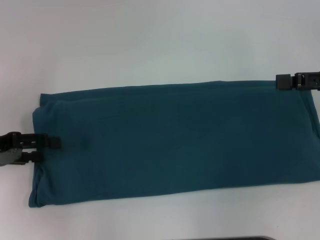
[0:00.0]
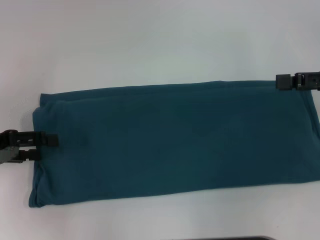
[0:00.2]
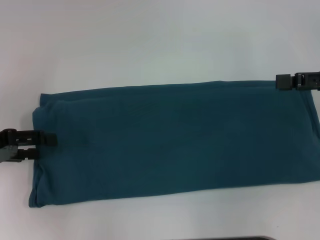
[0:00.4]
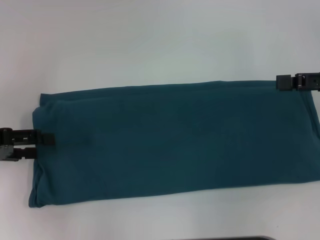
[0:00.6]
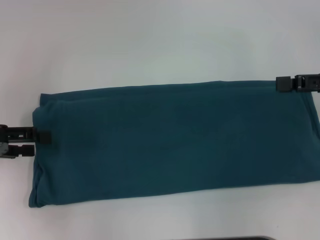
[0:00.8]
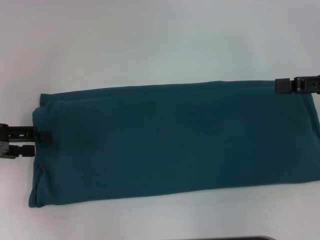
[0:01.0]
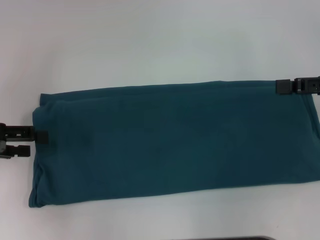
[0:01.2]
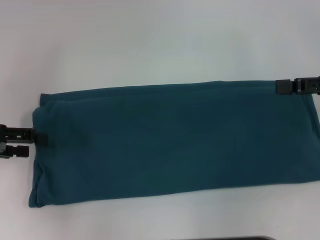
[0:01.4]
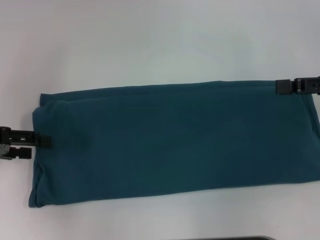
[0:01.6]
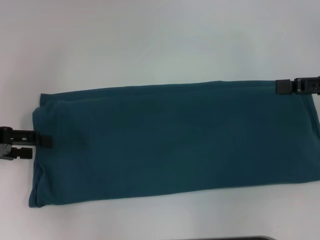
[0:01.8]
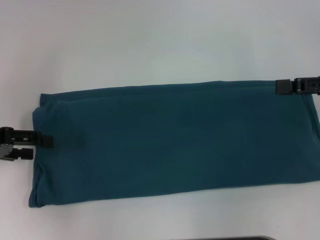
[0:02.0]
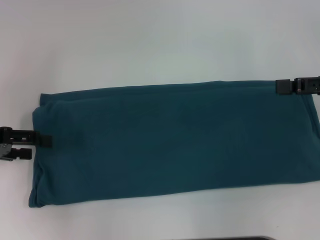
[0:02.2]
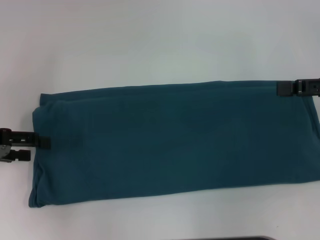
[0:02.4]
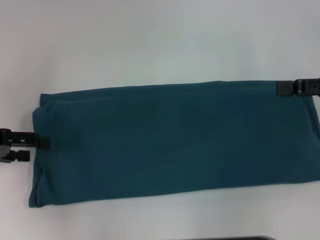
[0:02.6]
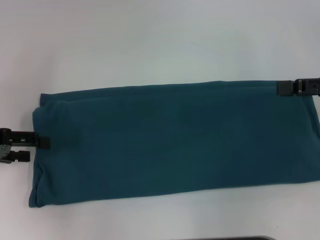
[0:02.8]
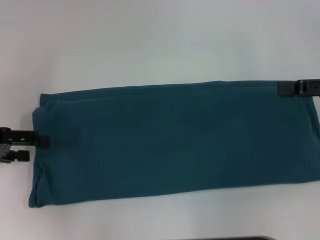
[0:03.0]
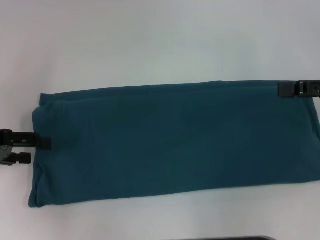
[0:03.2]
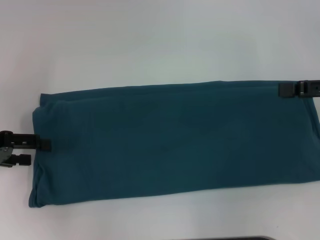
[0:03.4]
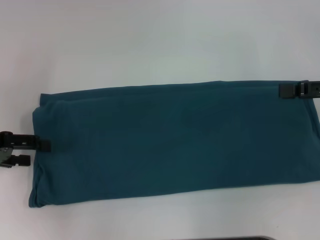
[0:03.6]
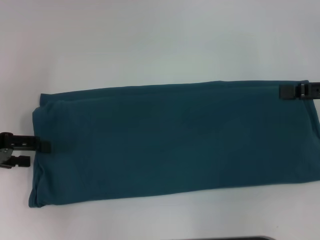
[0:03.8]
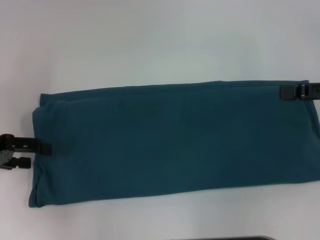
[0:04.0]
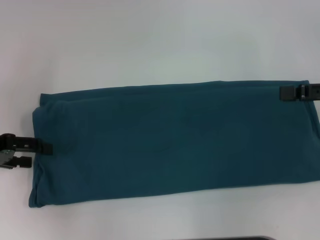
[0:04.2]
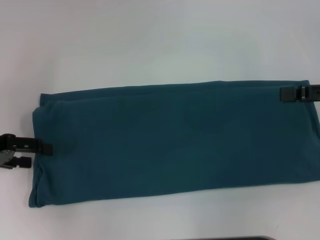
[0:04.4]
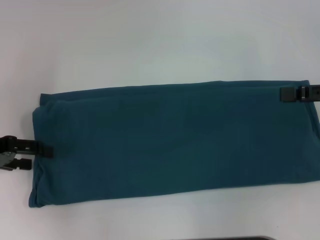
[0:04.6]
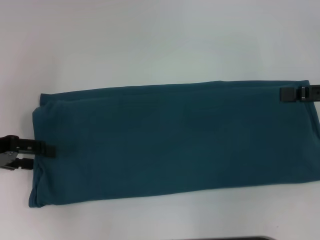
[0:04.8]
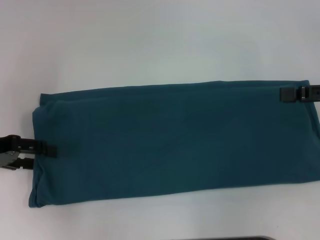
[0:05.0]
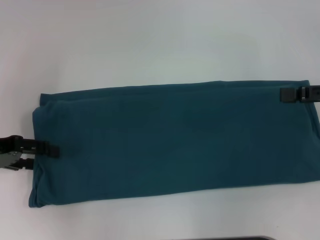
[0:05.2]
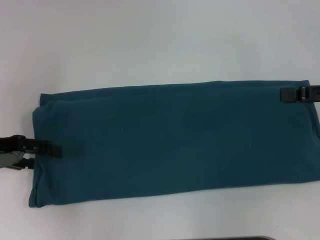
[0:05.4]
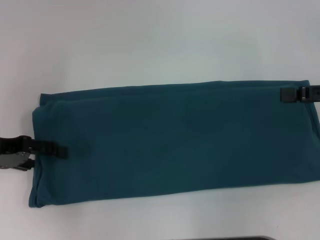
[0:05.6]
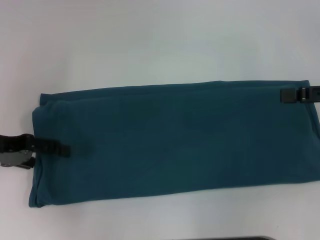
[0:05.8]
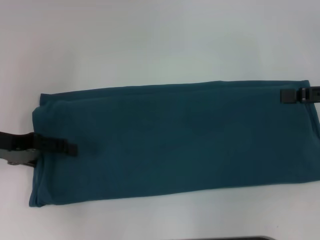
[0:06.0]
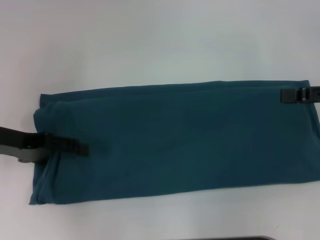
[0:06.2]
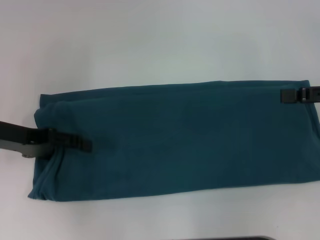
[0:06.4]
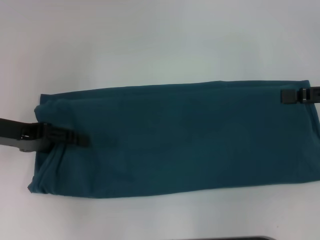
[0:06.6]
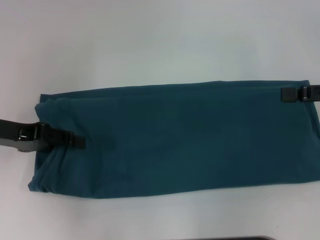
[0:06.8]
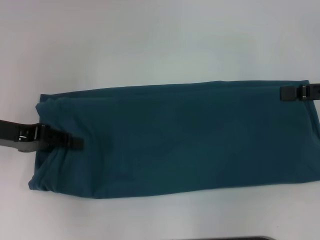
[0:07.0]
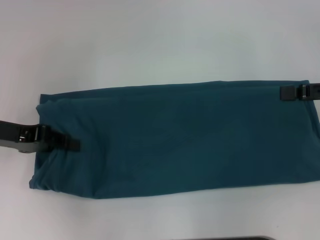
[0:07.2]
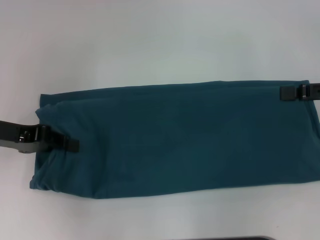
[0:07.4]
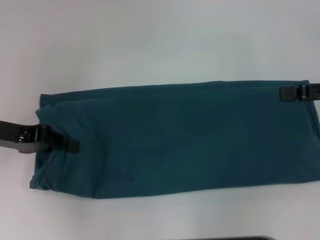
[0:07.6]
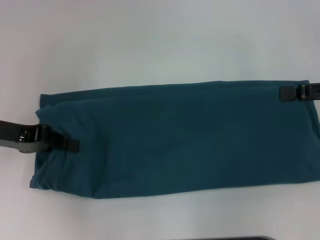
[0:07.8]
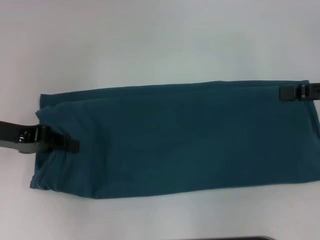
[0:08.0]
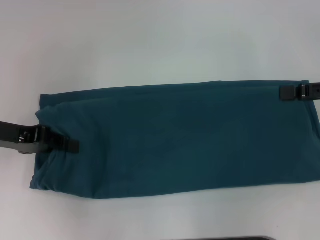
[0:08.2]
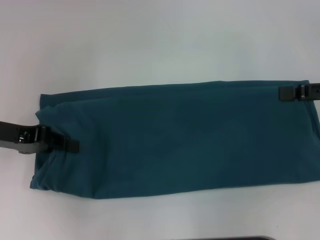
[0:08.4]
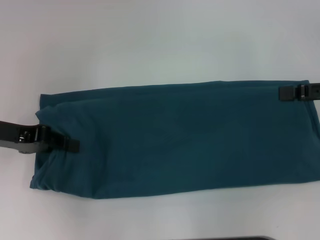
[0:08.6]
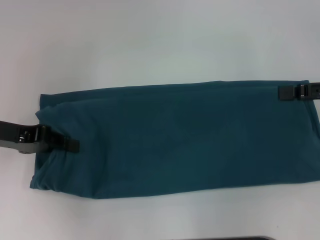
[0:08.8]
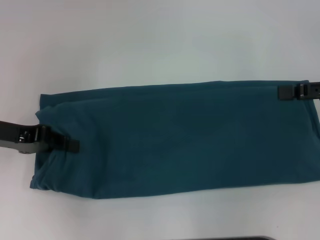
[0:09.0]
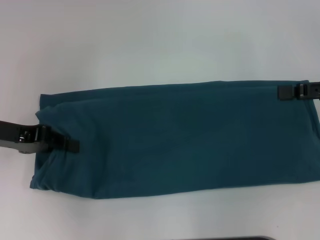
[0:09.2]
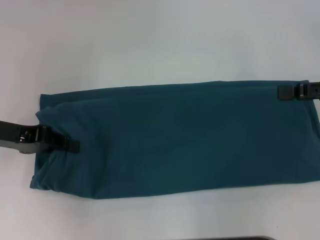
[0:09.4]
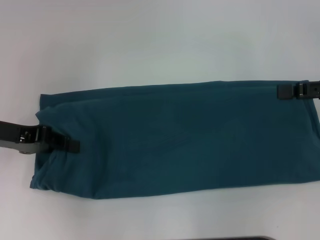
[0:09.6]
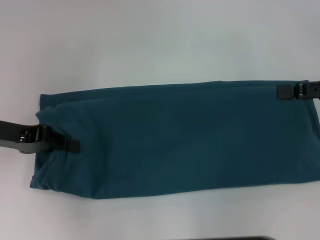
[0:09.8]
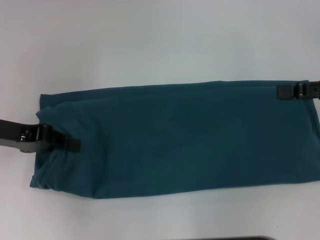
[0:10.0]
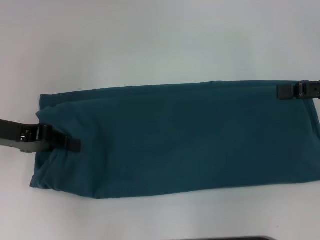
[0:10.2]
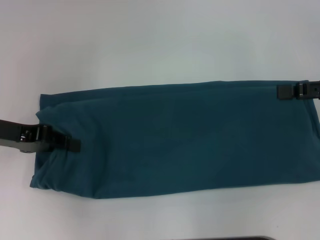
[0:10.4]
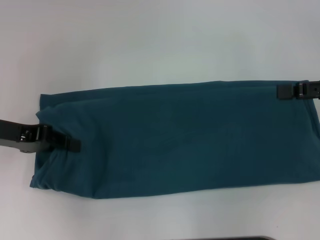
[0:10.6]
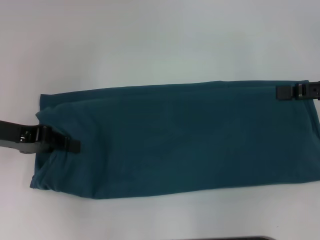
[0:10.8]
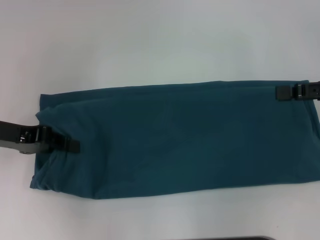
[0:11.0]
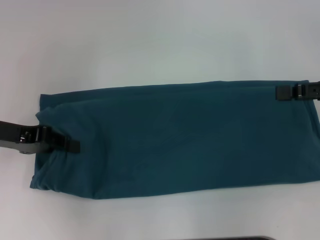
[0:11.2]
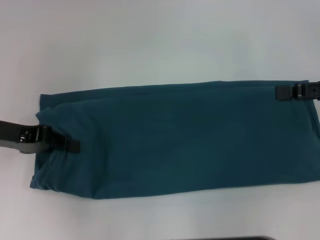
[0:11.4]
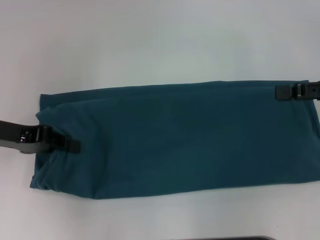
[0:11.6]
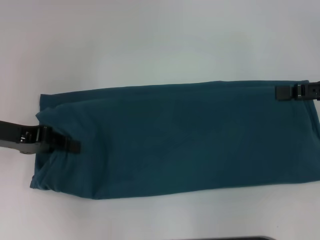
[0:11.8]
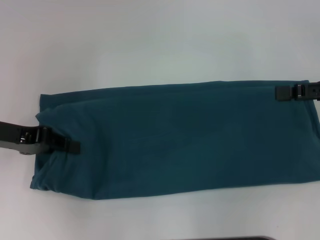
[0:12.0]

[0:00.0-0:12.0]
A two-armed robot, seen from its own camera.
0:00.0 to 0:01.6: The grippers move only a little.
0:03.0 to 0:04.4: Both grippers stay put.
0:04.4 to 0:06.0: The grippers make only small movements.
0:06.0 to 0:07.6: The left gripper closes its fingers.
0:07.6 to 0:12.0: Both grippers stay put.

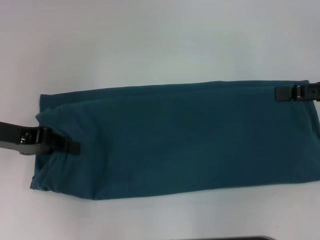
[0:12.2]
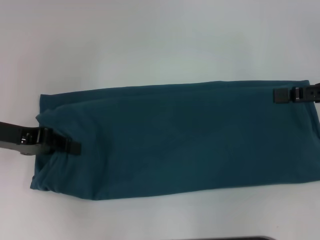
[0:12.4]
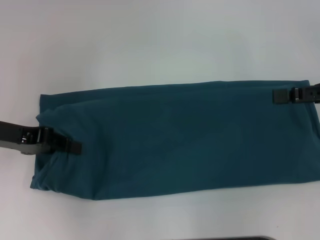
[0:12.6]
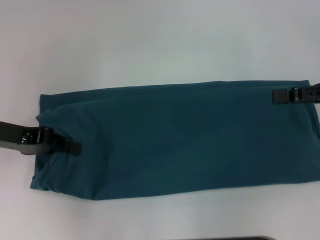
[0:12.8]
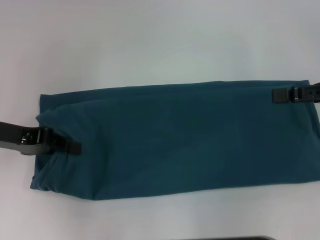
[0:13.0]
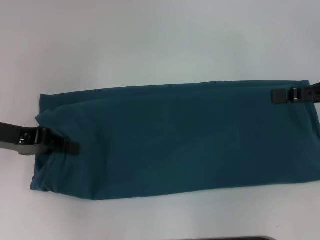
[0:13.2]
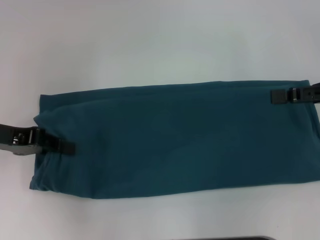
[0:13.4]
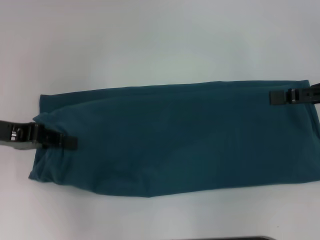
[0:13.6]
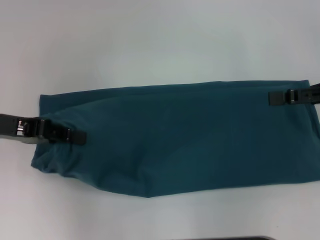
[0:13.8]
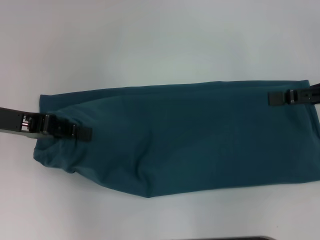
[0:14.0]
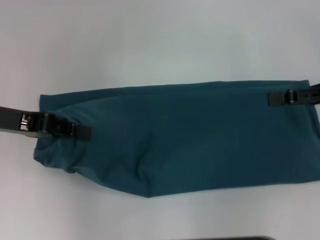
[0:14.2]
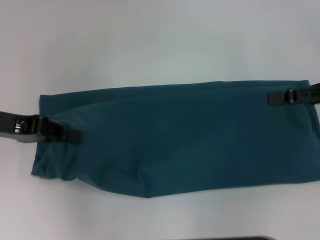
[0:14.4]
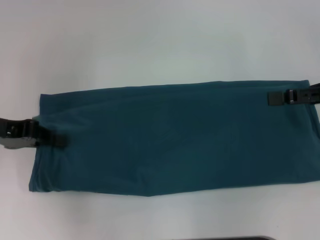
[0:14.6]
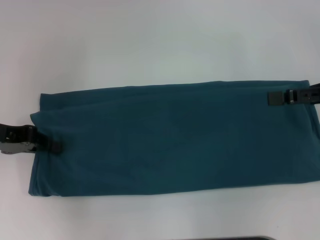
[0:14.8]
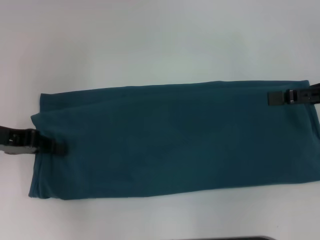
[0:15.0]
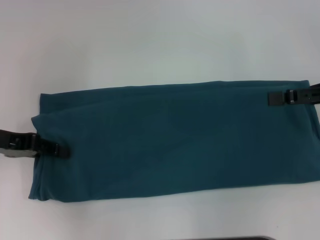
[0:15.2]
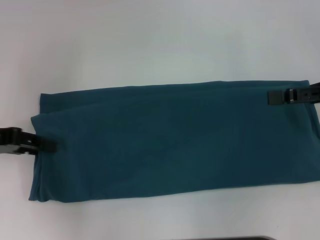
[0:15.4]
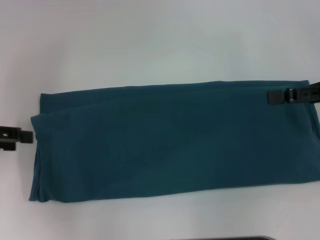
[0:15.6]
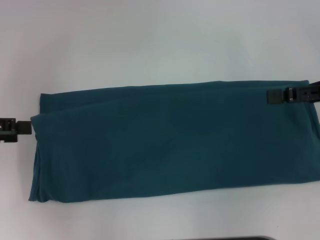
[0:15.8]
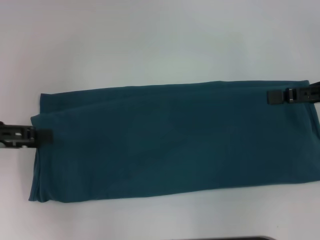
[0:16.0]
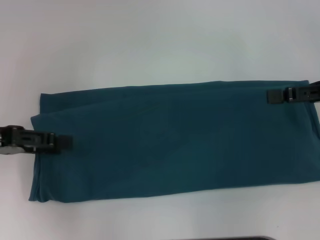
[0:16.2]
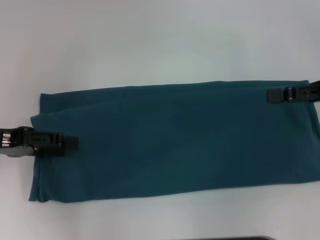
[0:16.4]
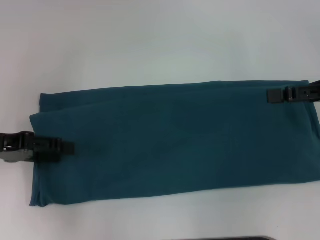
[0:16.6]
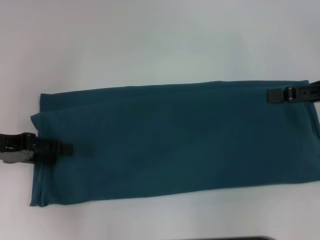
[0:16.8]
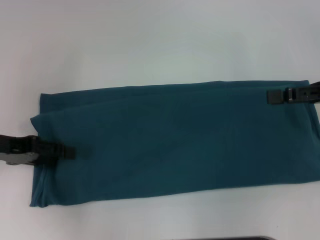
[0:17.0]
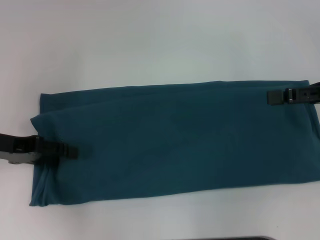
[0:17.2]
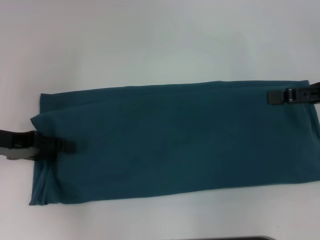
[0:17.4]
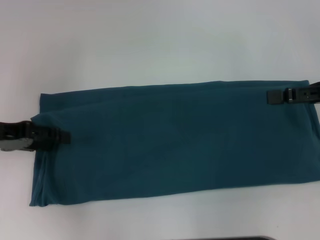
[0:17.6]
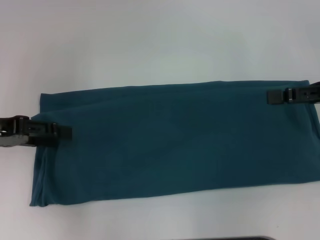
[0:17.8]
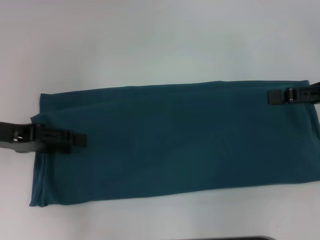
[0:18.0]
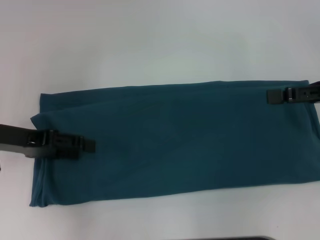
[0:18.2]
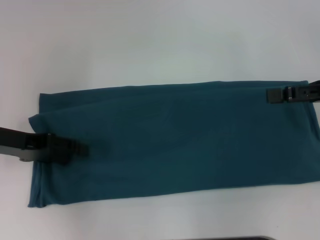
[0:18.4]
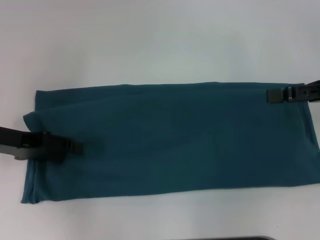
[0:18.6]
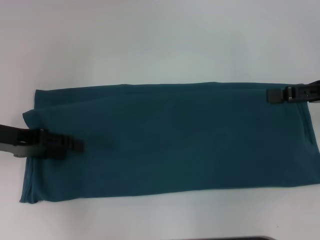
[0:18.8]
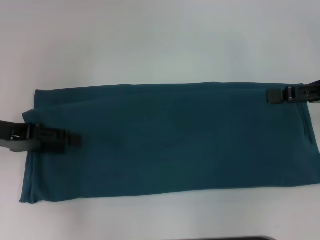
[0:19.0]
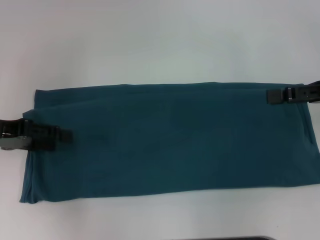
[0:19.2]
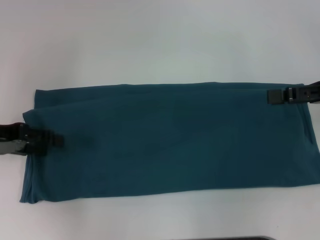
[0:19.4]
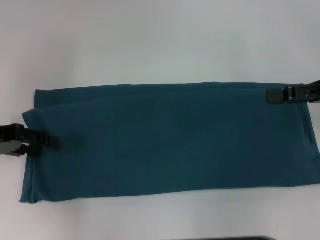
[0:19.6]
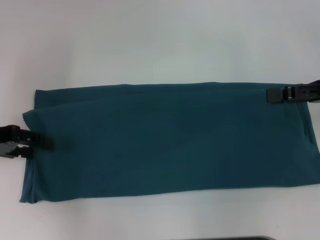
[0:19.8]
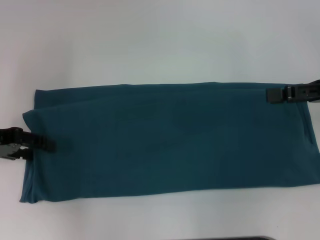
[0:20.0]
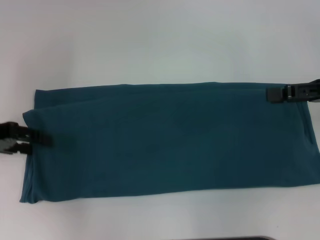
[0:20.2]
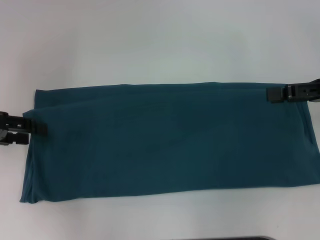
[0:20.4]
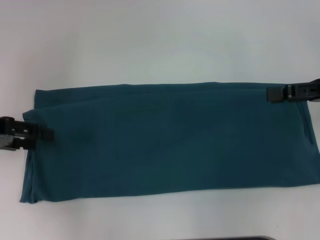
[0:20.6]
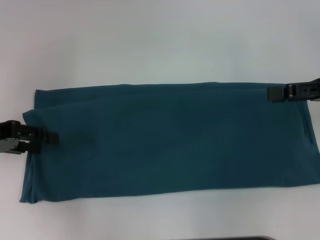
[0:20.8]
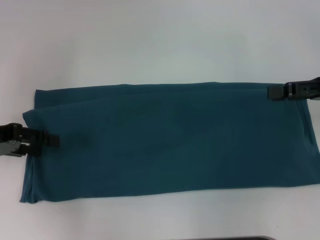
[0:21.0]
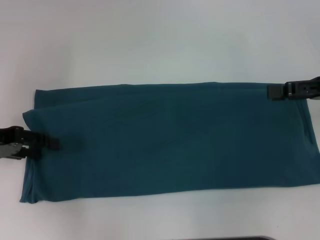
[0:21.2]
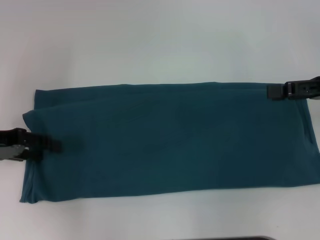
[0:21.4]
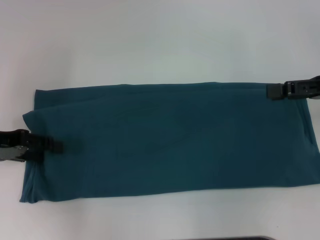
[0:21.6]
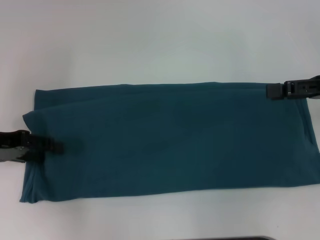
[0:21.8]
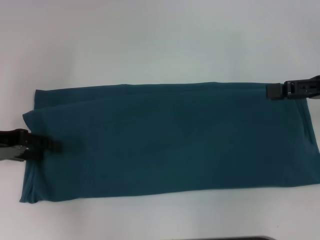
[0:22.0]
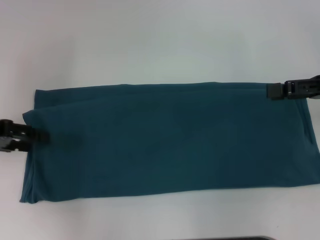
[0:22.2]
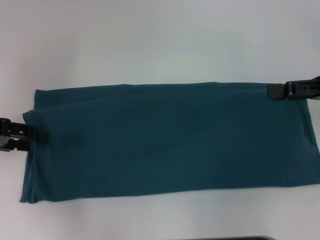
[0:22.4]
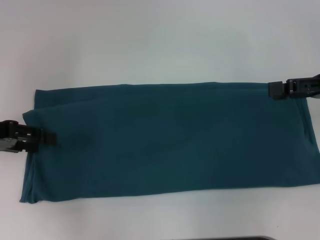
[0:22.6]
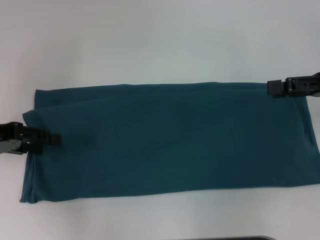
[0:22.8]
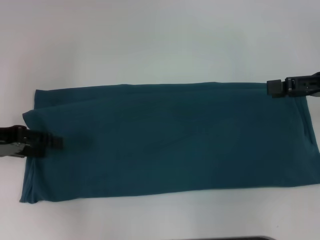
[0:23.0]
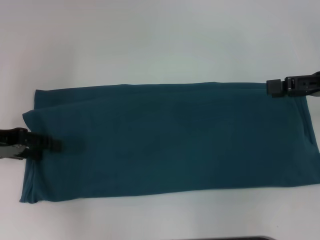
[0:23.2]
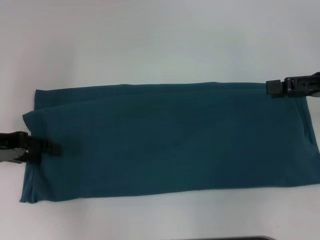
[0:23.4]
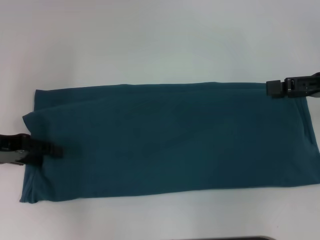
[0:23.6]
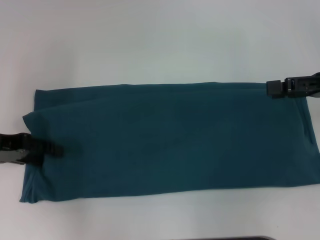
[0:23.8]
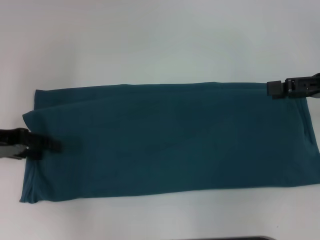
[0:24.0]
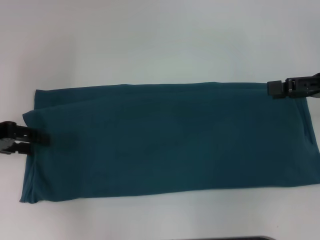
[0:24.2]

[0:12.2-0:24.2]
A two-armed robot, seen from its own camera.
0:12.2 to 0:15.2: There are only small adjustments of the grippers.
0:15.2 to 0:16.6: The left gripper opens.
0:16.6 to 0:19.8: The grippers stay close to where they were, moving slightly.
0:21.2 to 0:22.6: There are only small adjustments of the grippers.
